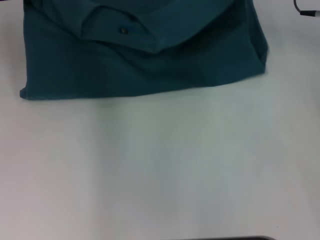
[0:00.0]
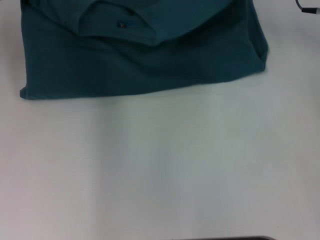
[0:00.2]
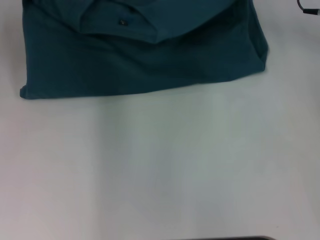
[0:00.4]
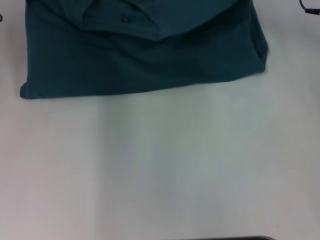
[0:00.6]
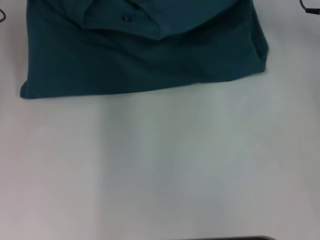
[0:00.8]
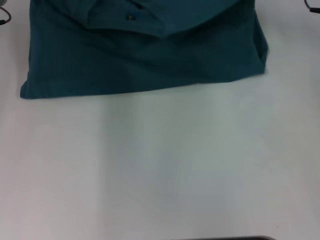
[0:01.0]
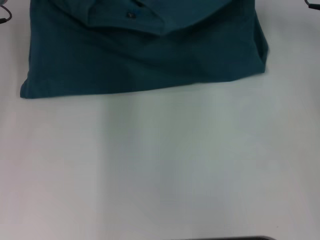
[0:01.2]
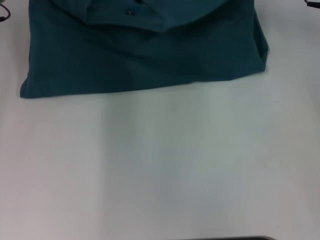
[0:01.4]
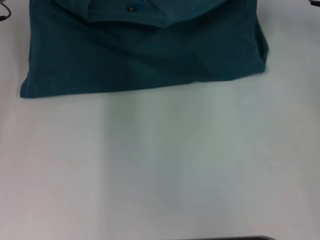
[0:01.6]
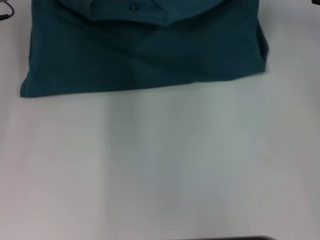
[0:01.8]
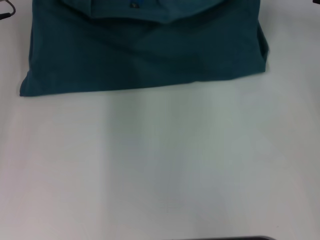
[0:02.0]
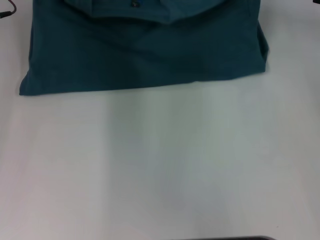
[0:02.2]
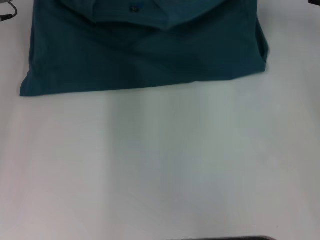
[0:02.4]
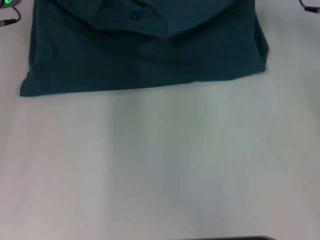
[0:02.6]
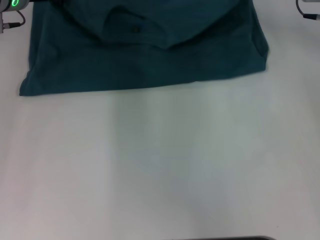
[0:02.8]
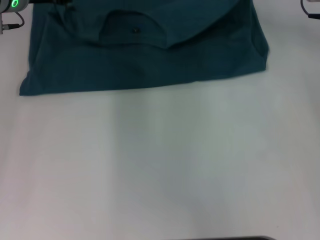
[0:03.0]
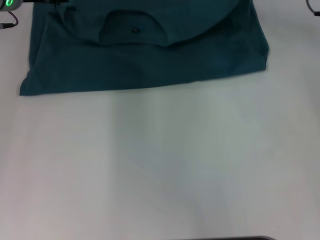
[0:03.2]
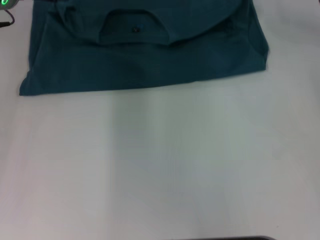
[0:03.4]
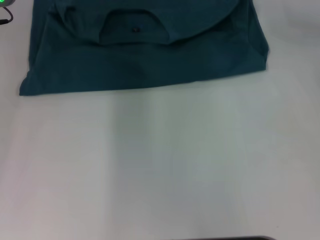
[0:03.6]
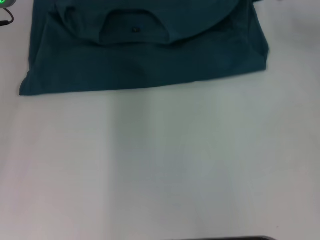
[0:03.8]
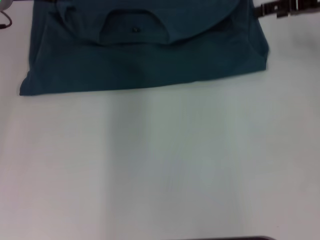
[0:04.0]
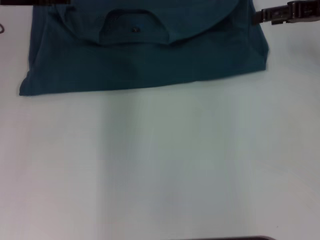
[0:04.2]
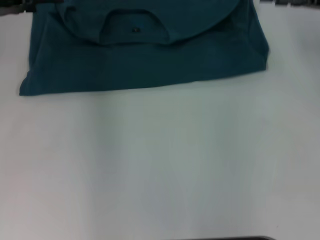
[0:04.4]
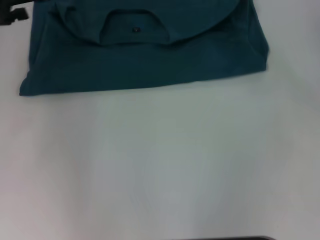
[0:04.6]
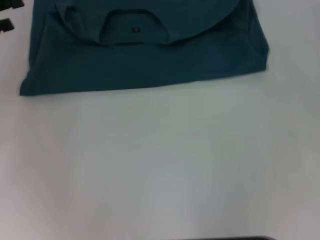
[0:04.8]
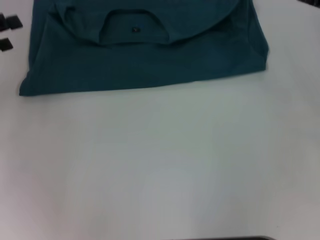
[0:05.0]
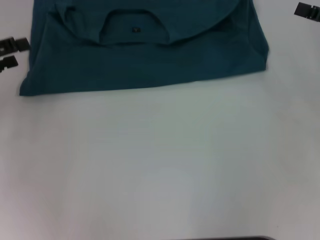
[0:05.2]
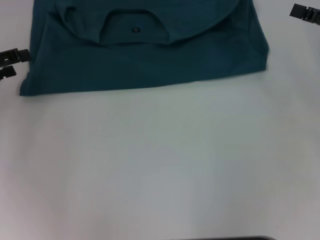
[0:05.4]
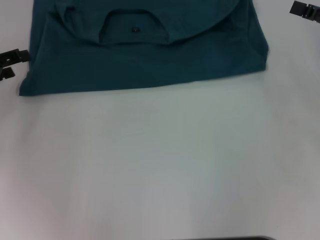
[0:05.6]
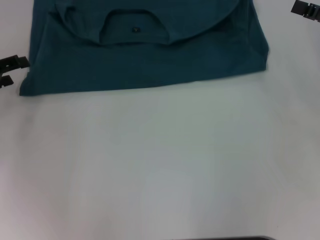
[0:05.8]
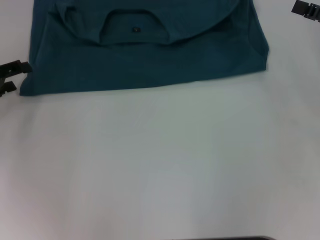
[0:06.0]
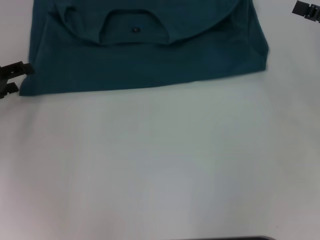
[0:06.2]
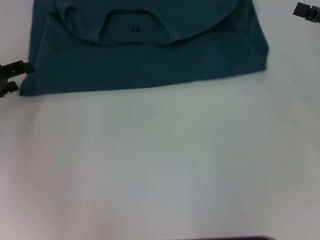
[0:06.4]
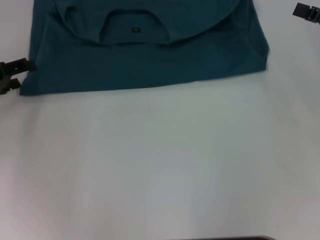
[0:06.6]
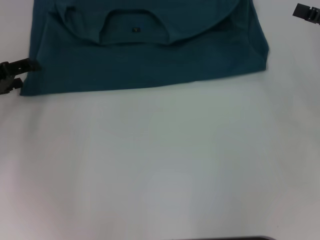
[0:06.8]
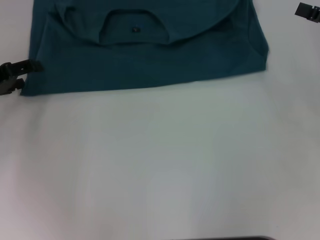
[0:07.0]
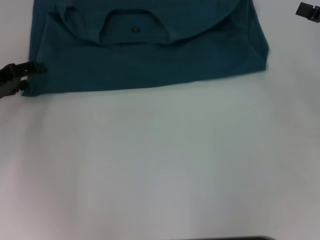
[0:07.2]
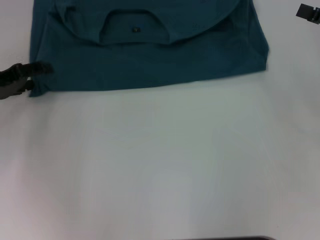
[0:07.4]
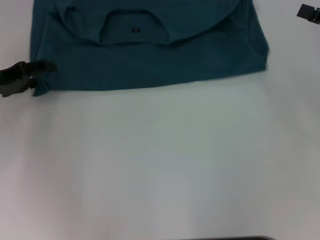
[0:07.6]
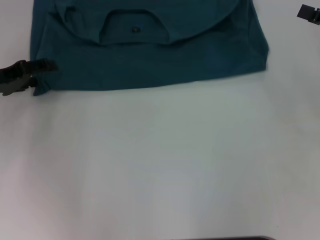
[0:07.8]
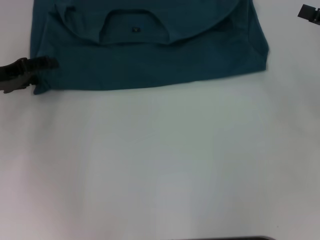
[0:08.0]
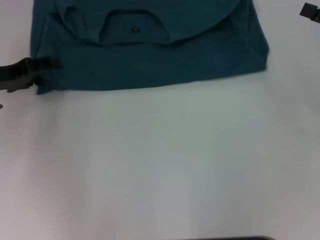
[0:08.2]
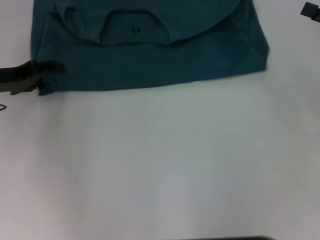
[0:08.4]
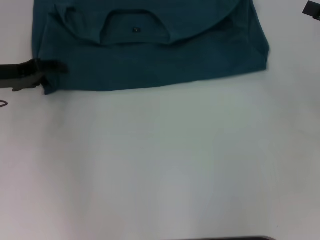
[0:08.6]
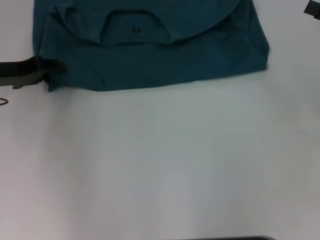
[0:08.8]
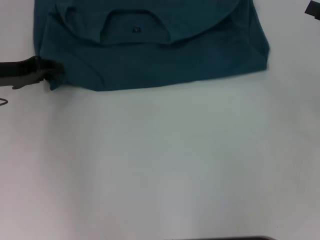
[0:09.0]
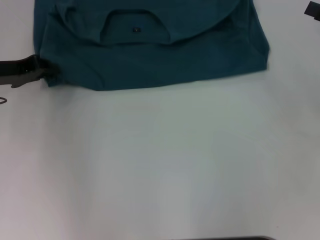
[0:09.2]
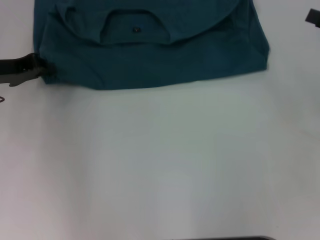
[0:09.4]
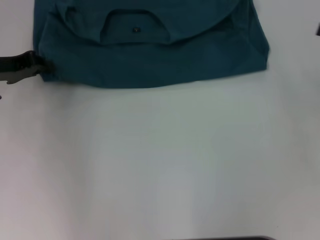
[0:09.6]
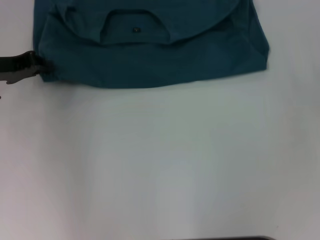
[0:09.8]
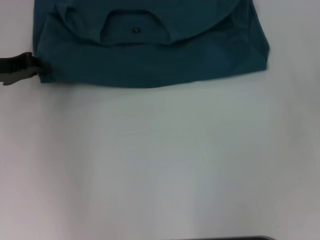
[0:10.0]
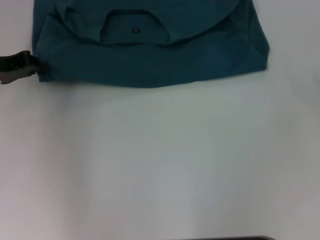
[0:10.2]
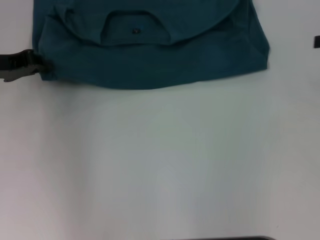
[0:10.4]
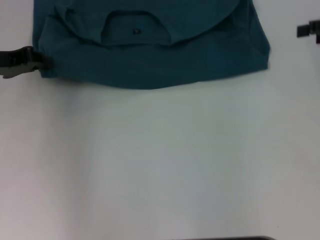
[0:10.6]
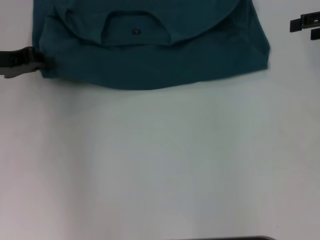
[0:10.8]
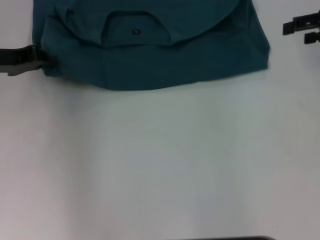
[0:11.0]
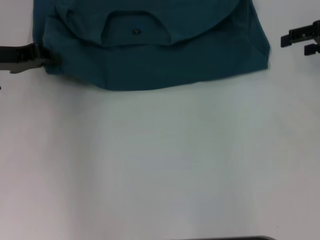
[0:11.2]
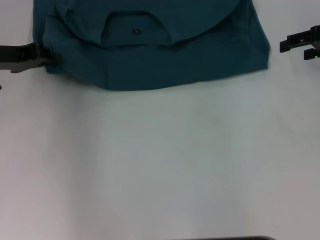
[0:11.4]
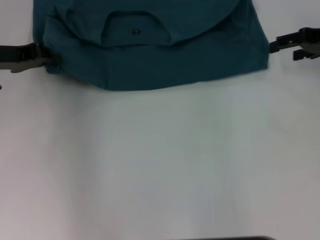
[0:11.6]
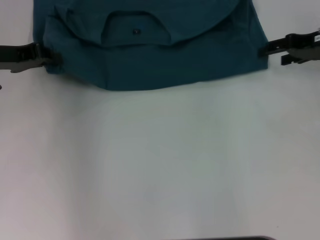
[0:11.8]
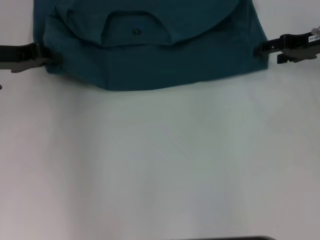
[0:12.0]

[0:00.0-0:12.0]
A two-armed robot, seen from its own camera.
Step, 0.0 to 3.2 s: Fold the clothes to the left.
Step, 0.0 to 3.2 s: Fold the clothes to the right.
0.0 to 1.6 s: There are only small adjustments of the grippers.
1.6 to 3.0 s: The grippers make only small movements.
3.0 to 4.4 s: The left gripper moves to the left and backward, some 10 cm, and opens. Meanwhile the right gripper travels to the right and backward by some 10 cm, and opens its fingers.
4.4 to 6.0 s: The right gripper moves backward, some 5 cm. The left gripper goes some 15 cm downward, backward and to the left.
6.0 to 7.6 s: The grippers move only a little.
7.6 to 9.0 s: The left gripper closes.
9.0 to 10.4 s: The left gripper closes, while the right gripper ends up some 5 cm from where it was.
10.4 to 12.0 s: The right gripper goes approximately 10 cm to the left and forward.

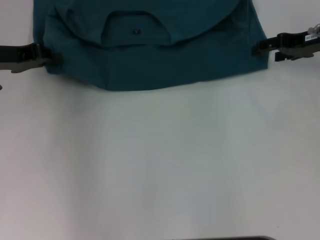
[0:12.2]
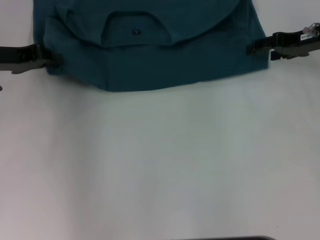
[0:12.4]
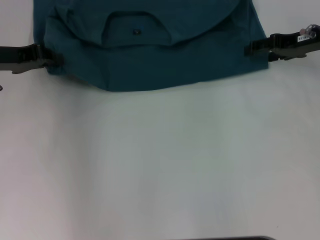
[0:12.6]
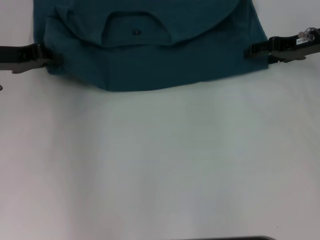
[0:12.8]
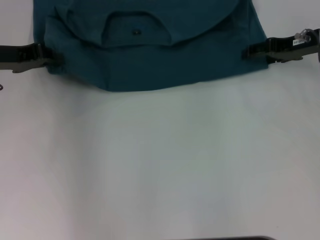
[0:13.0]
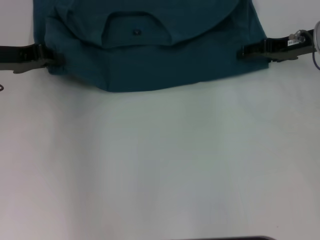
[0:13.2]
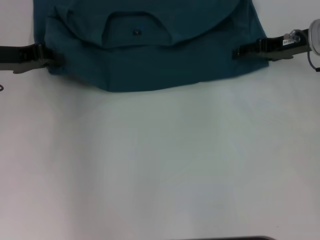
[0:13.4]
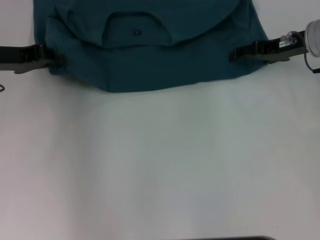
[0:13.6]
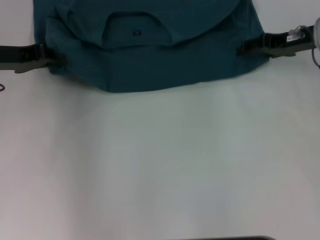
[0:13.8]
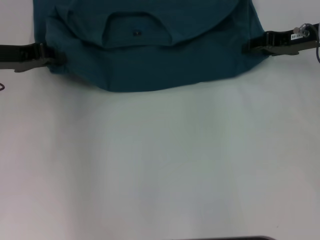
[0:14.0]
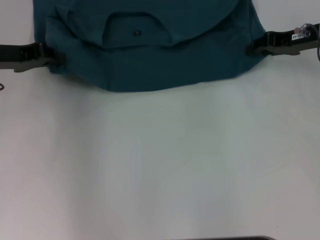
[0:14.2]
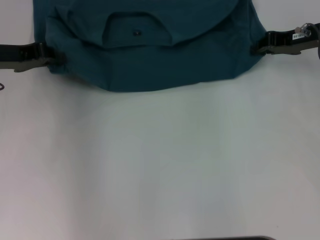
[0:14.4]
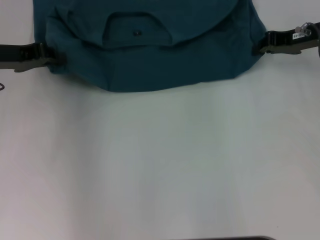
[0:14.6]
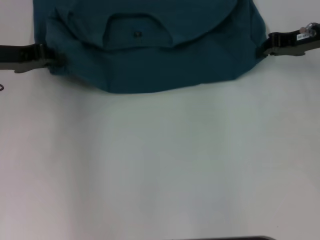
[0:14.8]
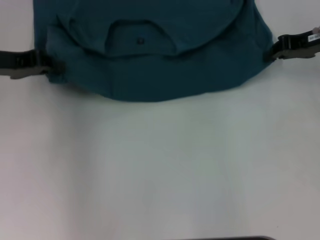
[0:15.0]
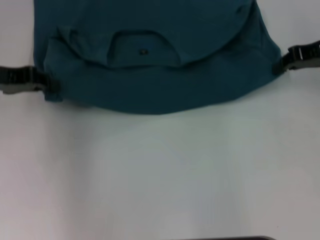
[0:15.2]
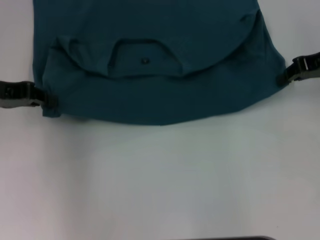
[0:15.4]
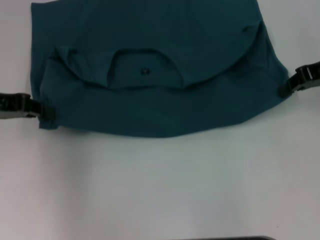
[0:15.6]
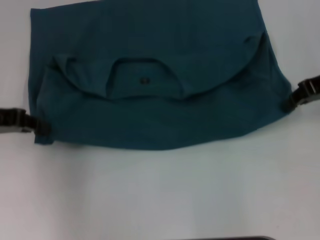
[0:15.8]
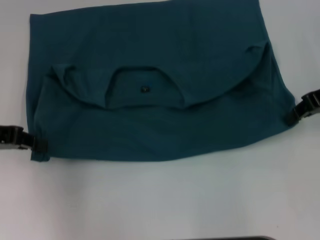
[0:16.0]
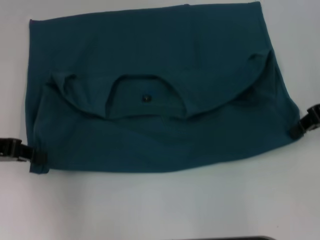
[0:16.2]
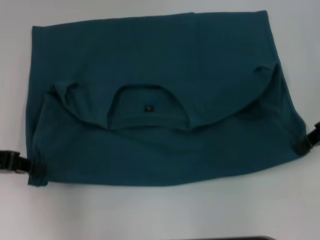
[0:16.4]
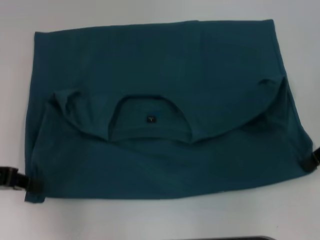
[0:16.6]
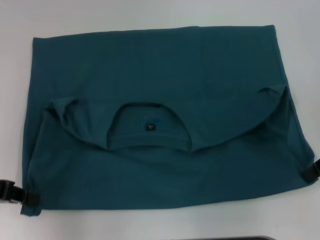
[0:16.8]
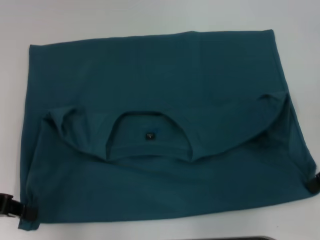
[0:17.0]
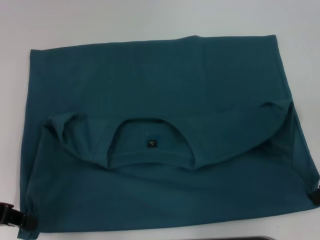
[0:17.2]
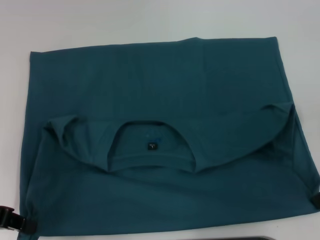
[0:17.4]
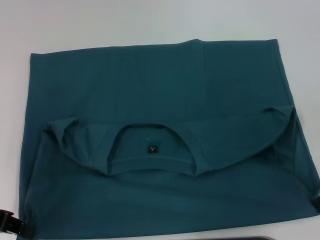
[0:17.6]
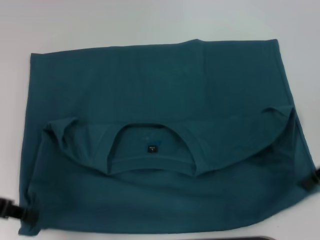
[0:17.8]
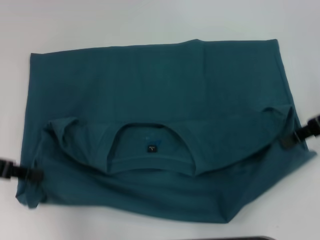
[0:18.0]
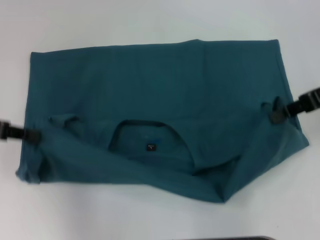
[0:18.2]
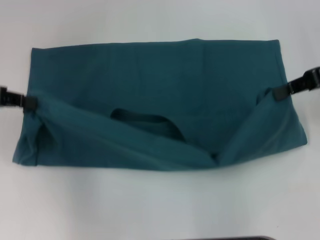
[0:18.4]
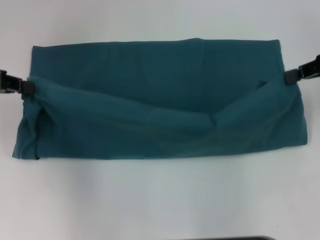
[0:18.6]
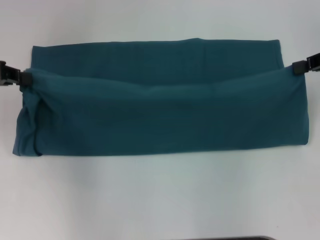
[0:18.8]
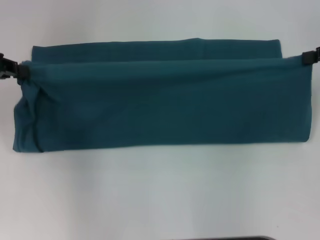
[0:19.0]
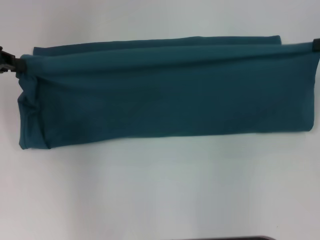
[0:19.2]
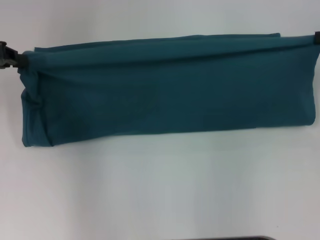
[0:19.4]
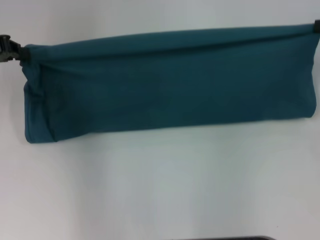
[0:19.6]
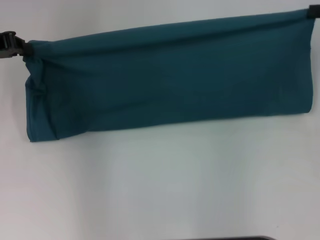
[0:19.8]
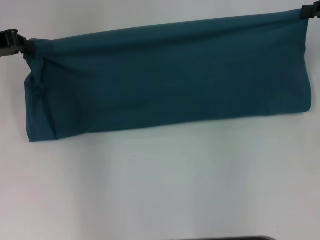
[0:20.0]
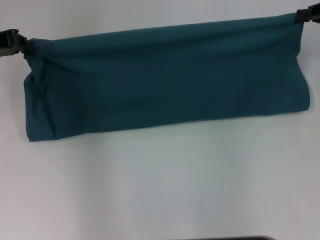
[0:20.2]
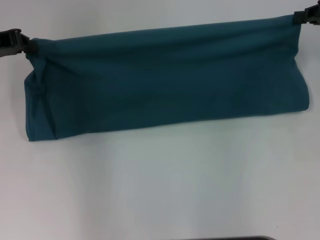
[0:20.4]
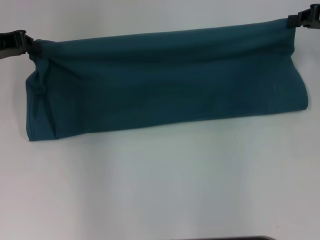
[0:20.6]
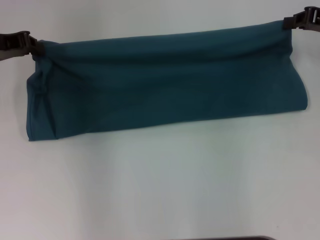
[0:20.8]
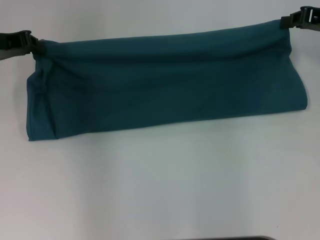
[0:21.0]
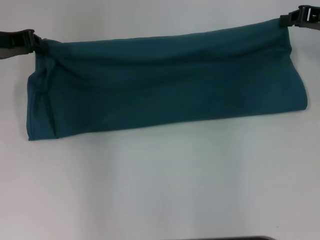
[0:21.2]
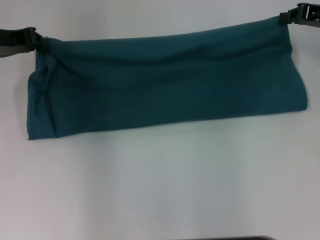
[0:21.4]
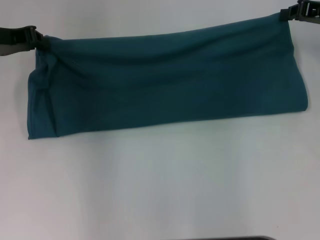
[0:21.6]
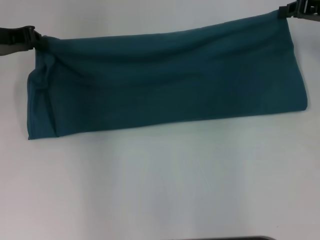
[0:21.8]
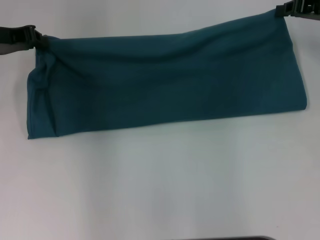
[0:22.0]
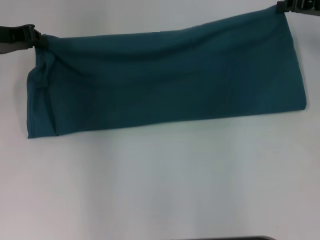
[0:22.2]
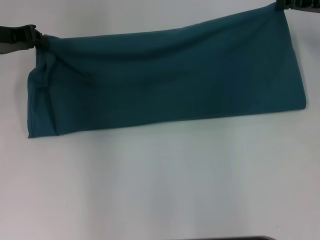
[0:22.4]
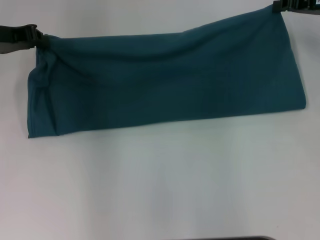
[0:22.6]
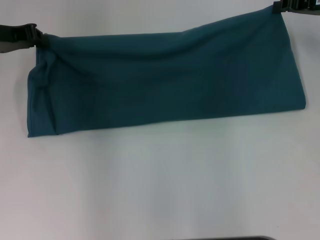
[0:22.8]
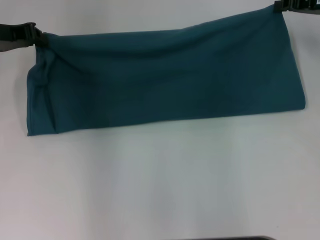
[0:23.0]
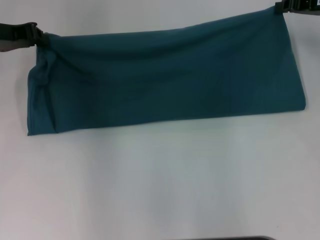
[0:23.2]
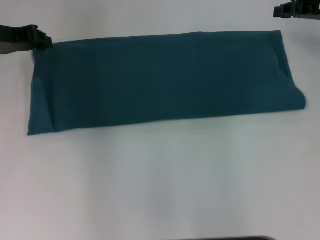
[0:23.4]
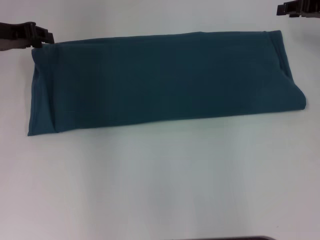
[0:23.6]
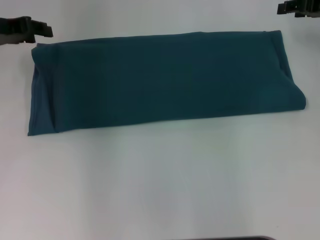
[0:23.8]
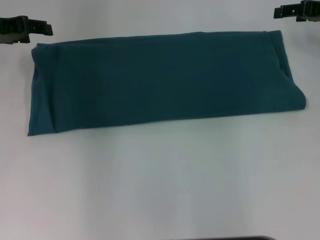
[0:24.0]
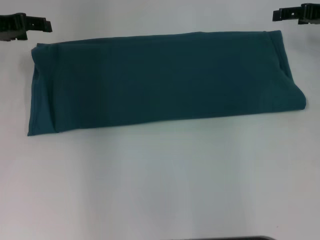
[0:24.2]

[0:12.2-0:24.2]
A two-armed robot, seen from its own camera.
Step, 12.2 to 16.6 s: Pull the clothes with your left hand.
Step, 12.2 to 16.6 s: Pull the clothes with your right hand.
Step, 16.8 to 23.8 s: Fold the clothes to the left.
Step, 16.8 to 23.8 s: Fold the clothes to the right.
12.2 to 13.8 s: The grippers stay close to where they were, moving slightly.
13.8 to 15.2 s: The right gripper ends up some 5 cm from where it was, and closes up.
15.2 to 16.6 s: Both grippers move backward, some 10 cm.
16.6 to 18.2 s: The left gripper moves roughly 5 cm.
18.2 to 19.8 s: The left gripper moves forward, some 10 cm. Meanwhile the right gripper is displaced to the right by some 5 cm.
19.8 to 21.2 s: The right gripper ends up some 5 cm from where it was.
21.2 to 22.6 s: The grippers stay close to where they were, moving slightly.
22.6 to 24.2 s: The right gripper opens its fingers. Meanwhile the left gripper opens its fingers.
